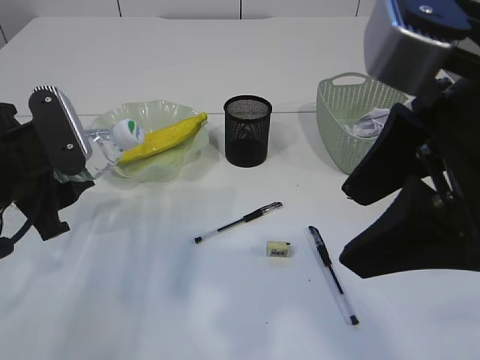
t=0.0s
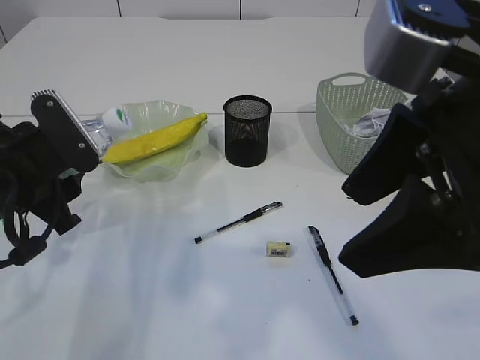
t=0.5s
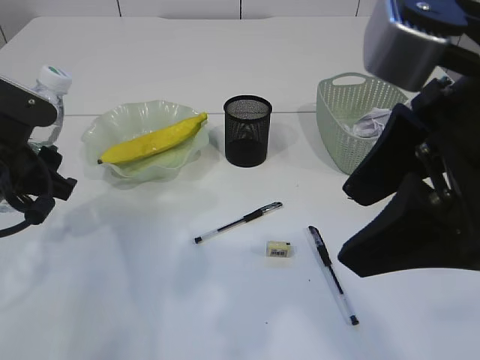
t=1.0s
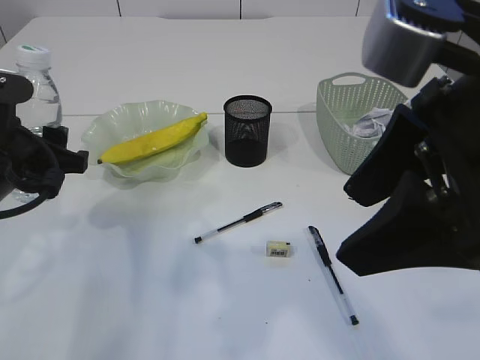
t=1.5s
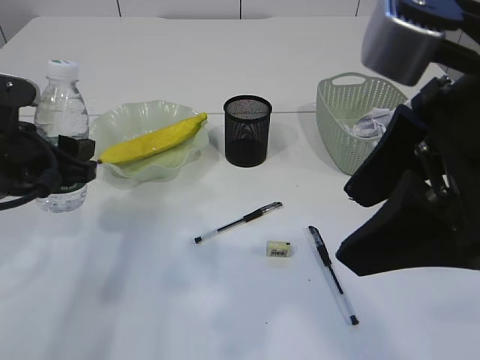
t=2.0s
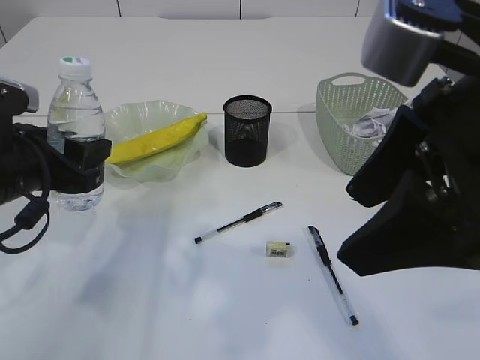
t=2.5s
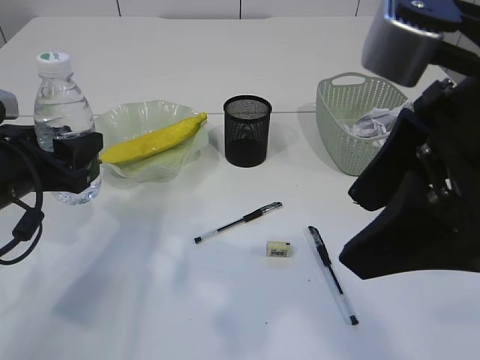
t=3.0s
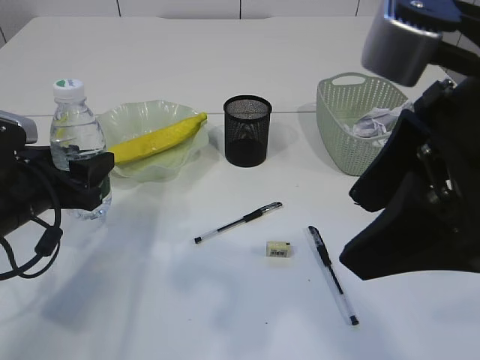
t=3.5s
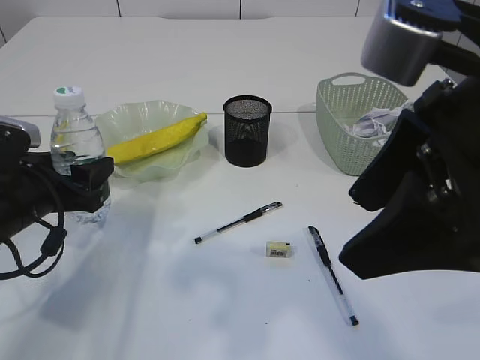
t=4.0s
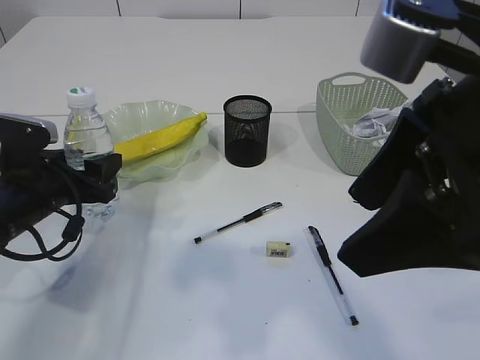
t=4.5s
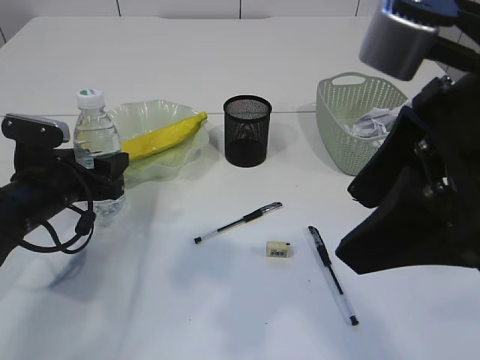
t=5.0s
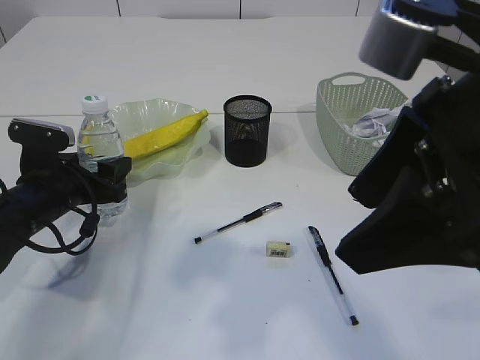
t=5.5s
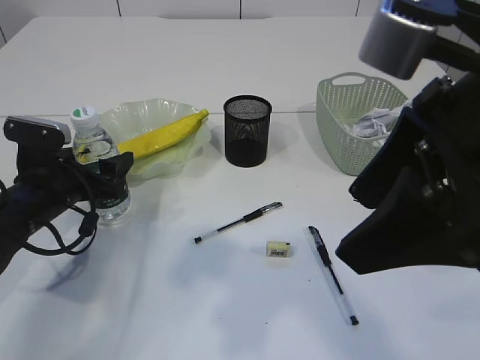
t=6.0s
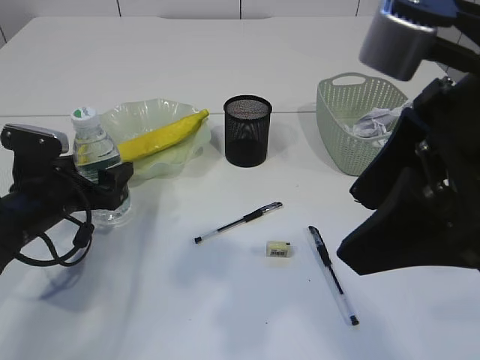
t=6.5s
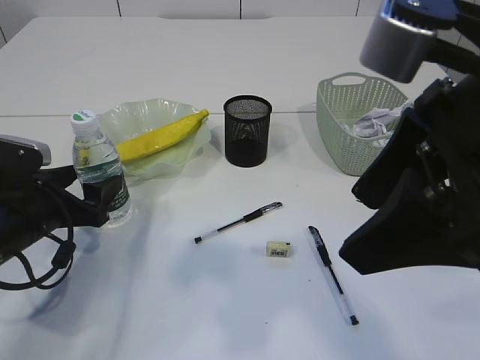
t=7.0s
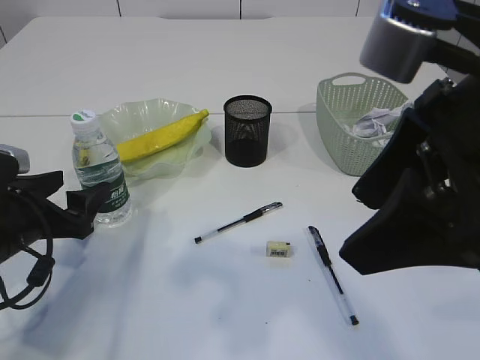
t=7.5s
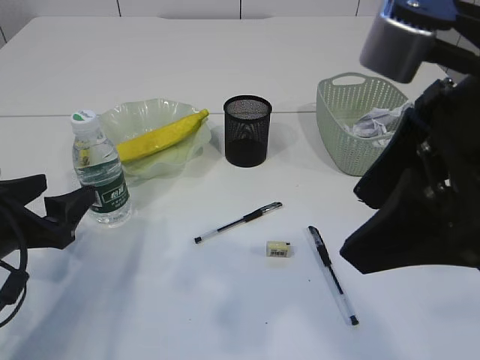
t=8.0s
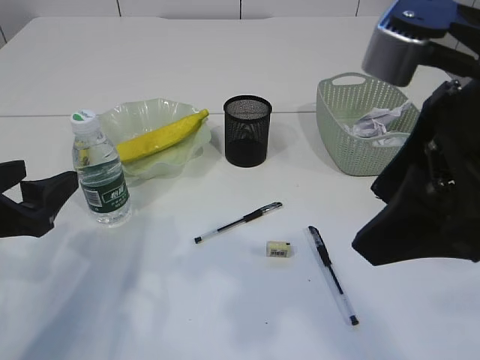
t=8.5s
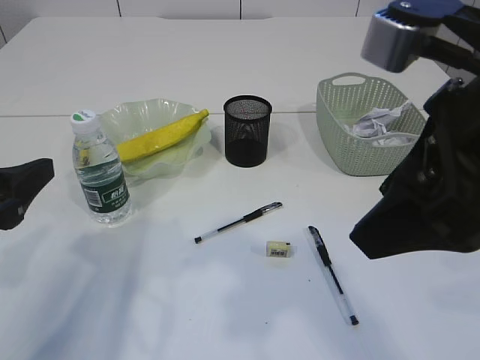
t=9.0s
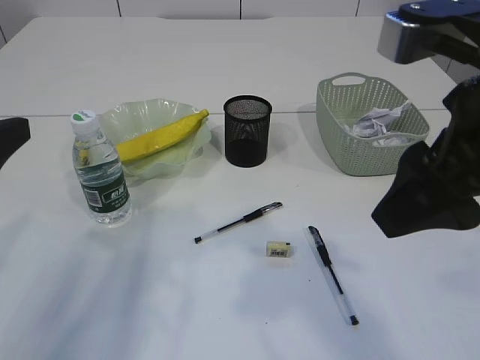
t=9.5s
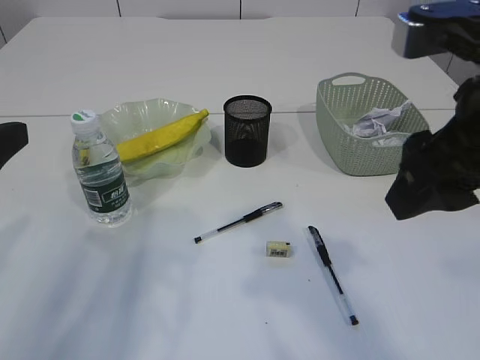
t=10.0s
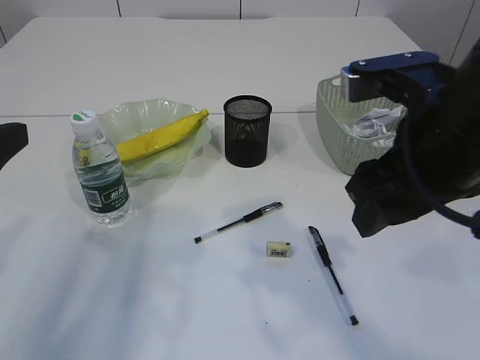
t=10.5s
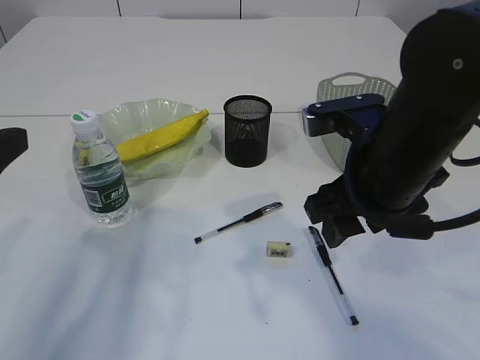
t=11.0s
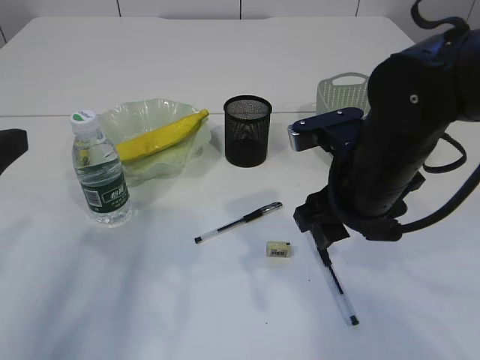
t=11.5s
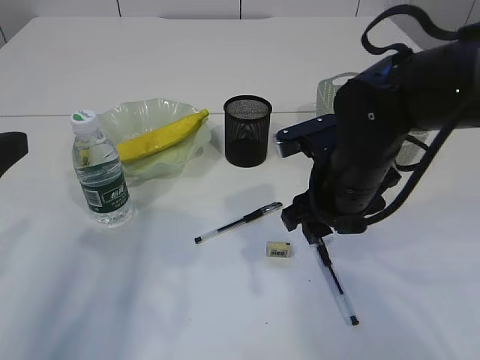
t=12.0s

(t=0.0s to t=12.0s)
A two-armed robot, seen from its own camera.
Step, t=0.0s - t=8.0s: Place the bottle.
t=2.0s - t=4.0s: The left gripper goes about 5 cm downward.
t=4.0s - t=6.0s: The left gripper ends up about 5 cm from where it was.
t=6.0s - t=8.0s: The left gripper goes roughly 10 cm backward.
t=8.0s - t=10.0s: The left gripper is displaced upward by about 10 cm.
t=10.0s - t=12.0s: The right gripper travels downward and forward by about 20 cm.

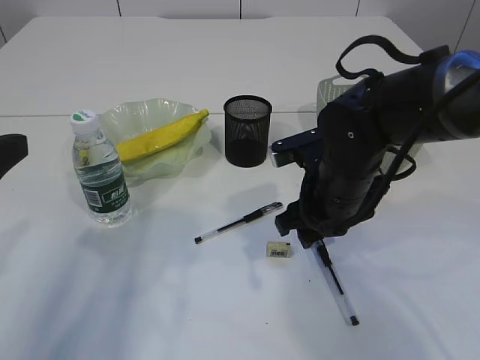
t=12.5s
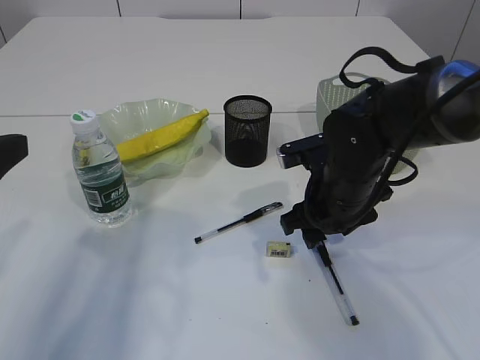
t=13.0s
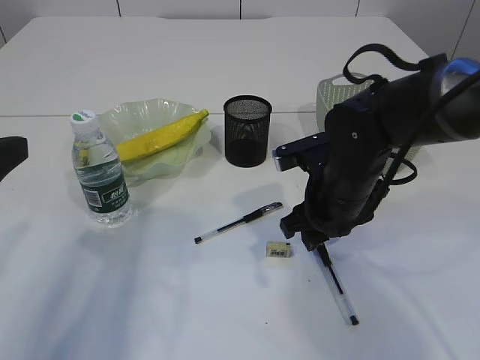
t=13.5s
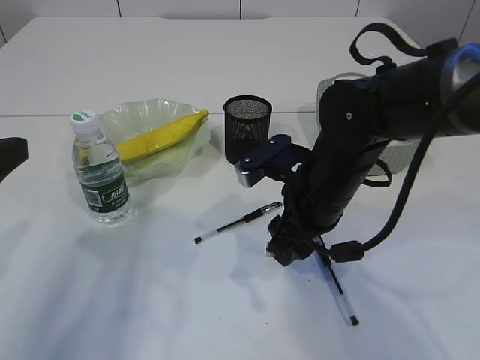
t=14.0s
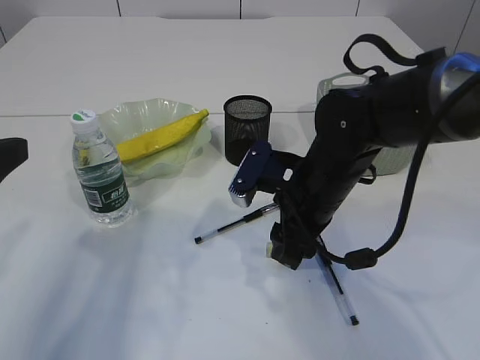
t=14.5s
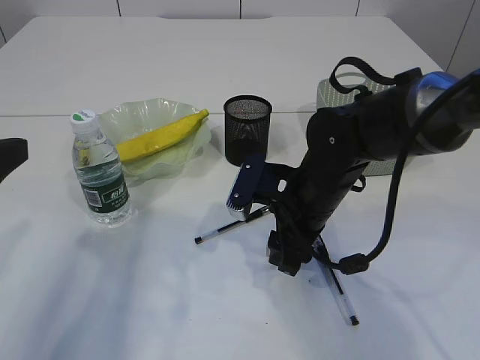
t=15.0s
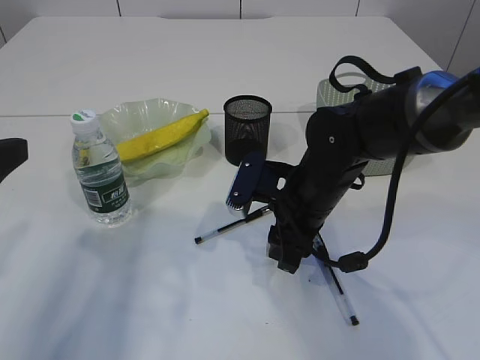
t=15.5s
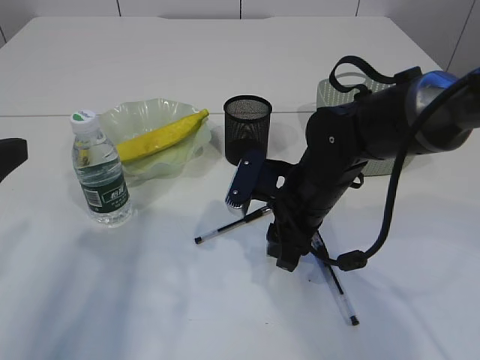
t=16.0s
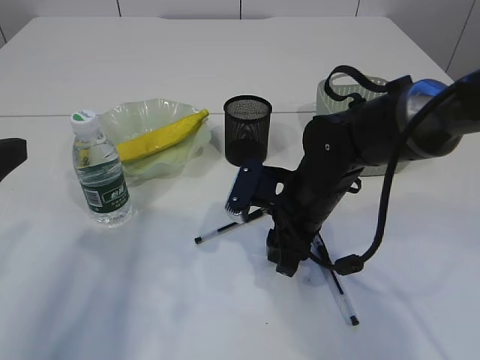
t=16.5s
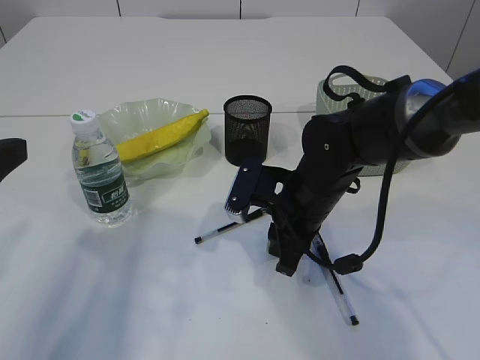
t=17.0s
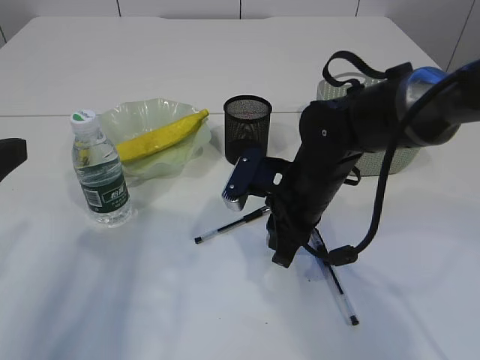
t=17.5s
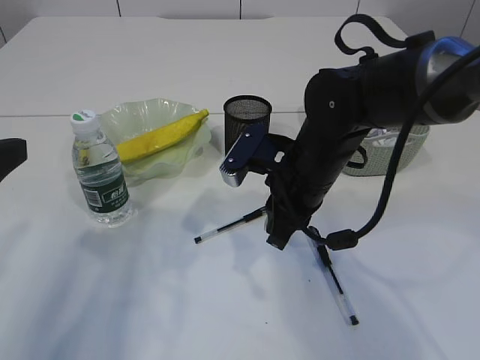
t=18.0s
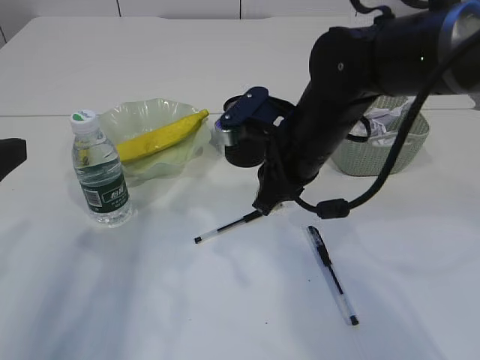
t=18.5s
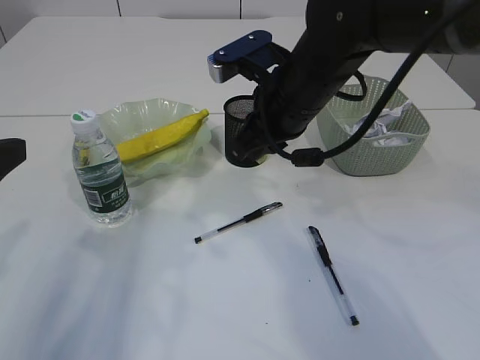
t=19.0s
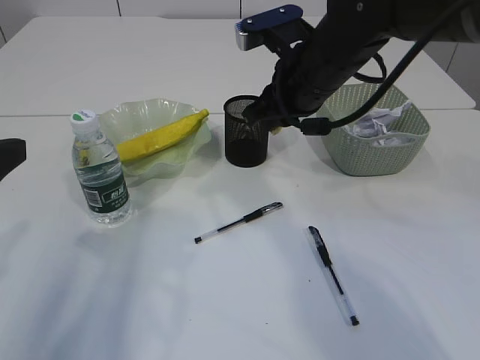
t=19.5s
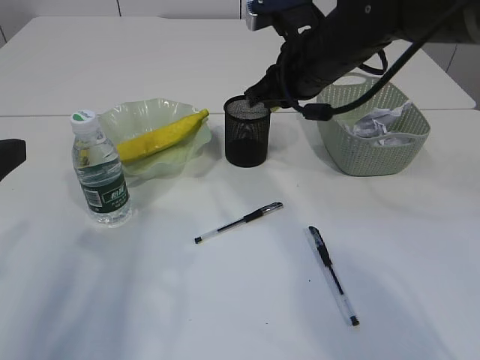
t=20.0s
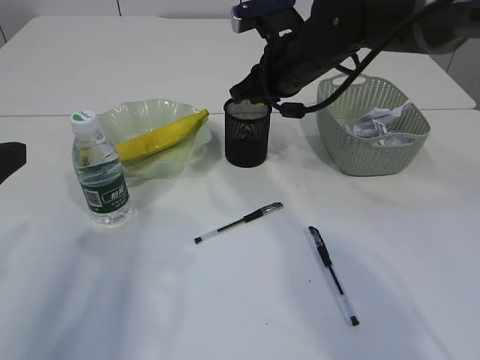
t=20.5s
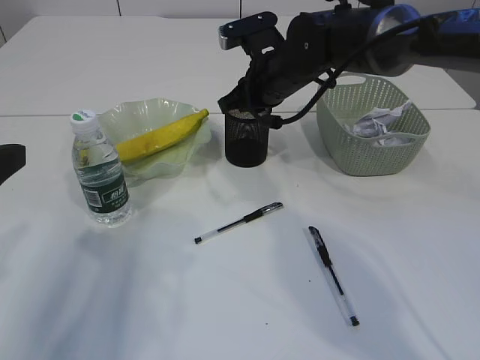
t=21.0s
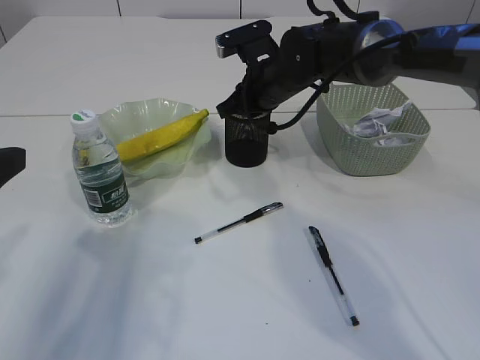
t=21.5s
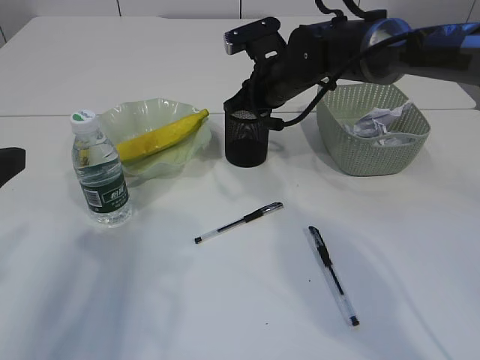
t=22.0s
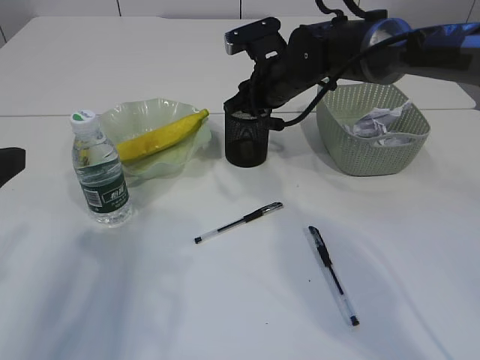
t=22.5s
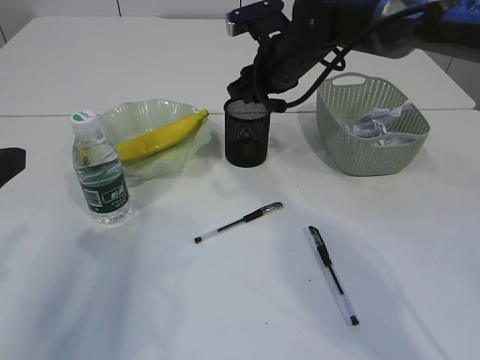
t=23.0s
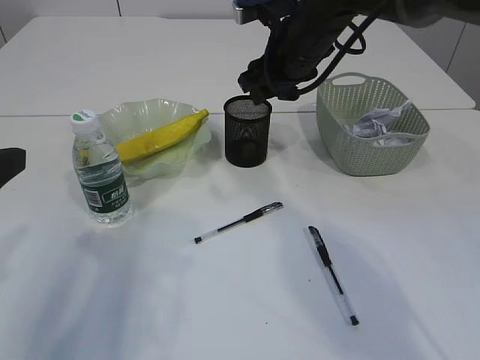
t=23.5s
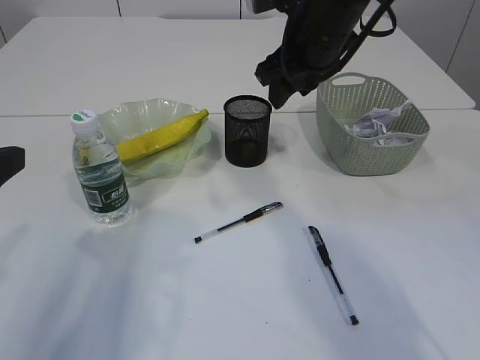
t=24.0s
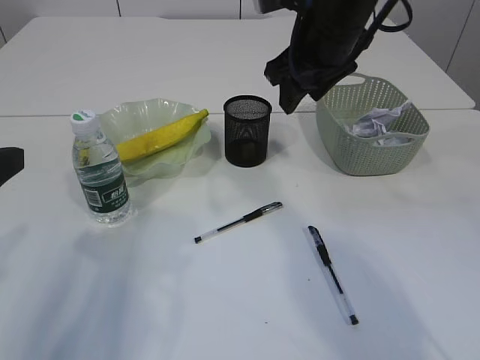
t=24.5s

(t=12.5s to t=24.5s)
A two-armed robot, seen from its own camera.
Step, t=12.5s - t=18.0s: Pick up the eraser.
Step, t=18.5s - t=23.5s: Place the eraser into the pen holder.
t=14.5s - t=16.5s: The grippers stay close to where they were, moving slightly.
t=16.5s - t=18.5s: The right gripper travels upward by about 10 cm, and closes its fingers.
t=18.5s - t=20.5s: The right gripper is displaced forward by roughly 10 cm.
t=20.5s - t=22.5s: The right gripper travels forward by roughly 5 cm.
t=22.5s - t=24.5s: The right gripper heads upward and backward, covering roughly 15 cm.

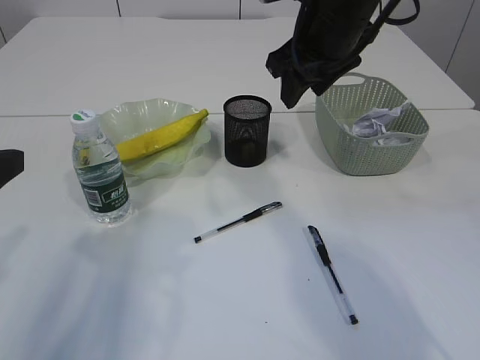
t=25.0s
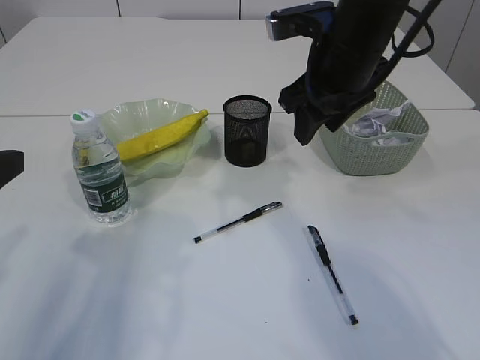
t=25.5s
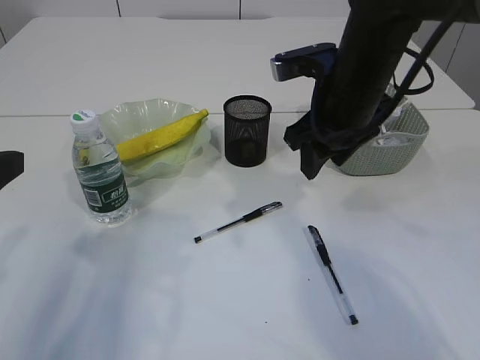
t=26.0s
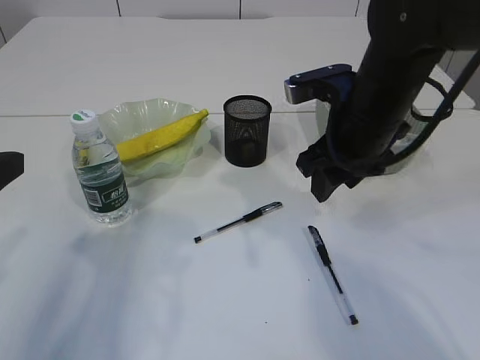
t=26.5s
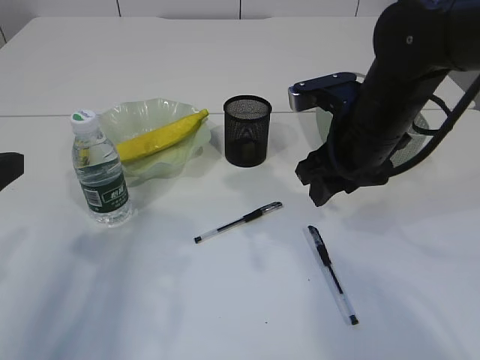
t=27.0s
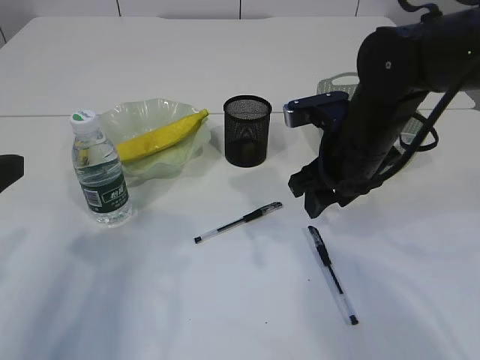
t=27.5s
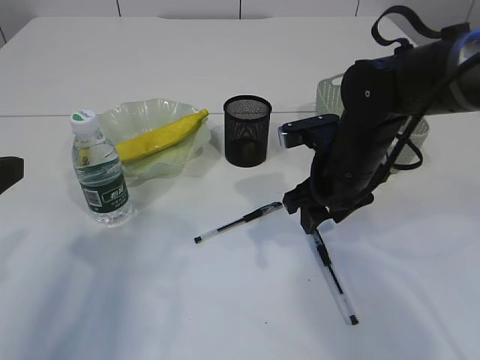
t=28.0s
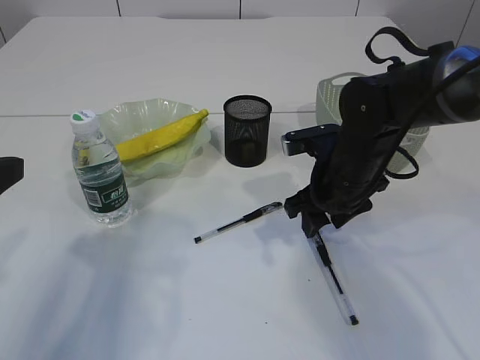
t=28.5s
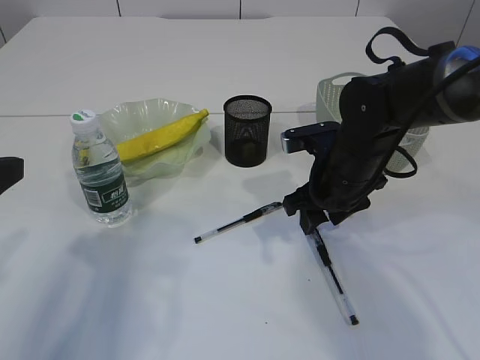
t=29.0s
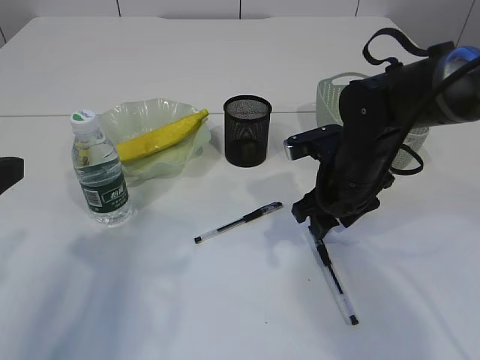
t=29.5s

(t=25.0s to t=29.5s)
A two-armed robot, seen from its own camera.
t=25.0s - t=27.0s: The right gripper shifts some 10 cm downward and backward.
t=27.0s - t=29.5s: The right gripper heads downward, covering some 10 cm.
